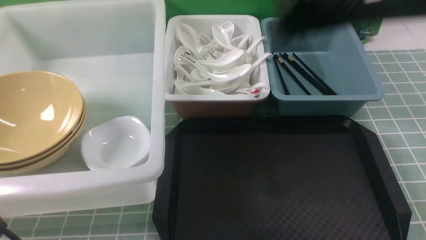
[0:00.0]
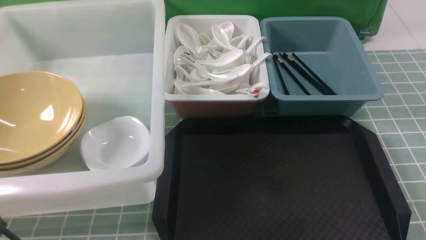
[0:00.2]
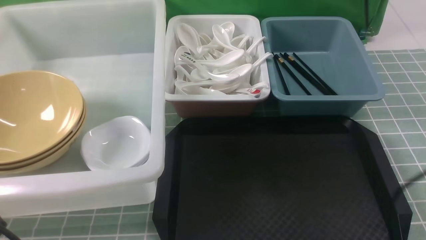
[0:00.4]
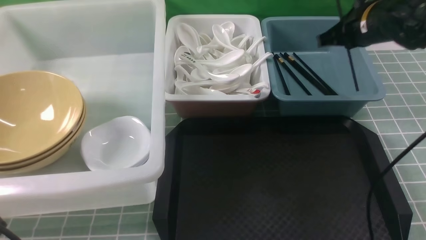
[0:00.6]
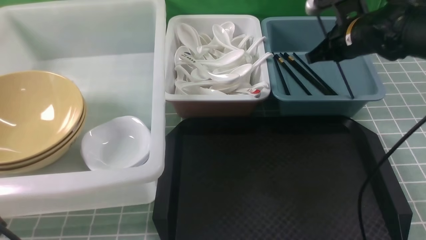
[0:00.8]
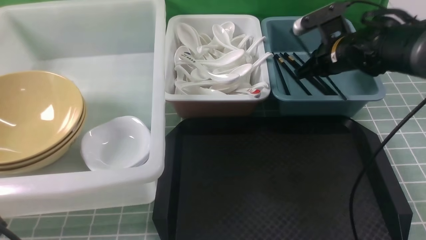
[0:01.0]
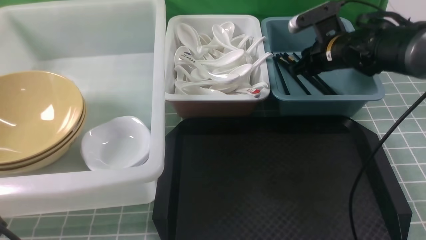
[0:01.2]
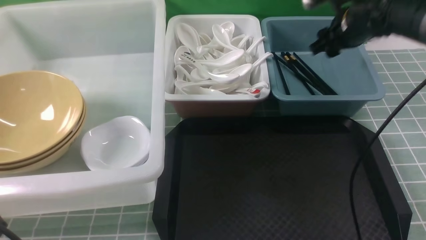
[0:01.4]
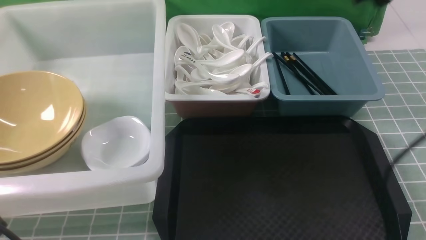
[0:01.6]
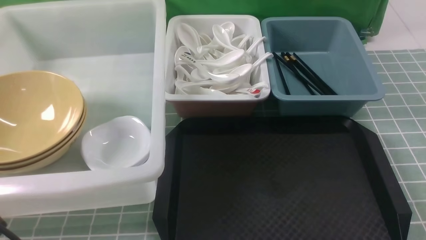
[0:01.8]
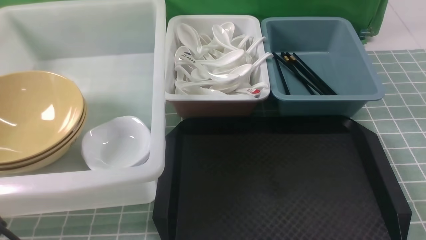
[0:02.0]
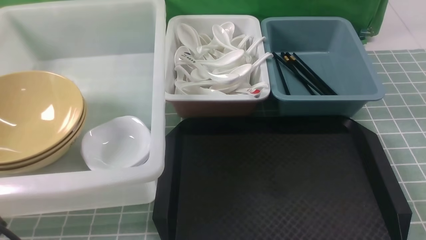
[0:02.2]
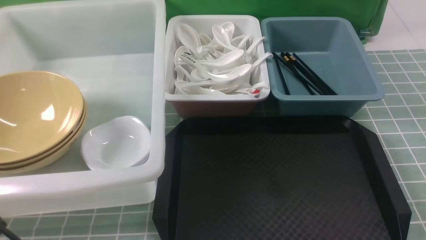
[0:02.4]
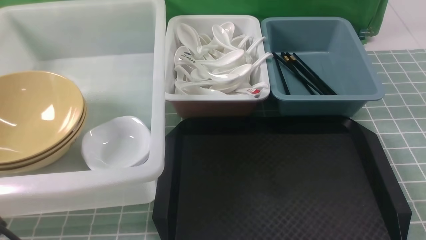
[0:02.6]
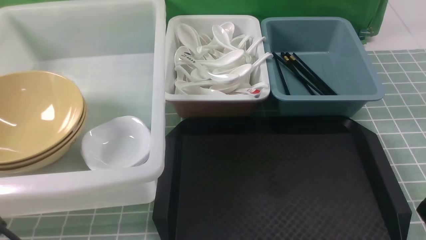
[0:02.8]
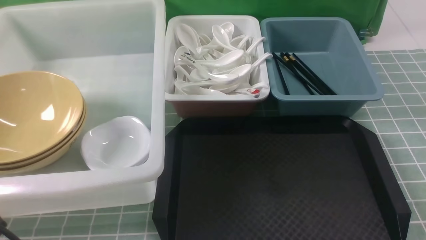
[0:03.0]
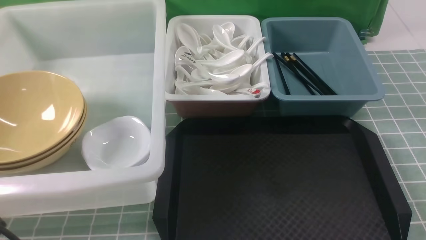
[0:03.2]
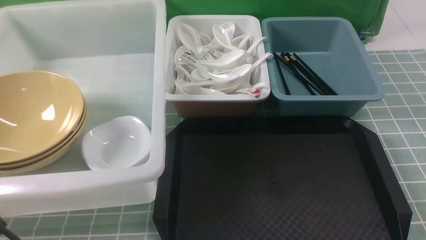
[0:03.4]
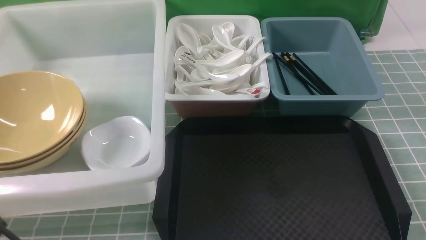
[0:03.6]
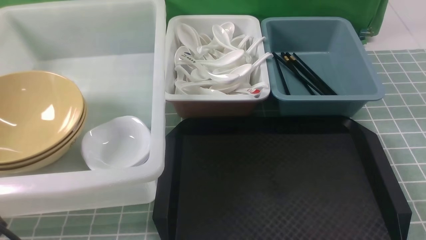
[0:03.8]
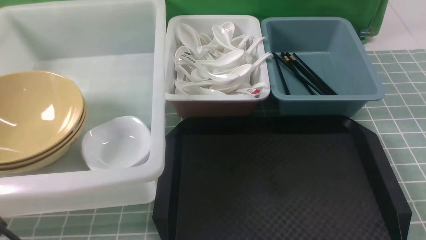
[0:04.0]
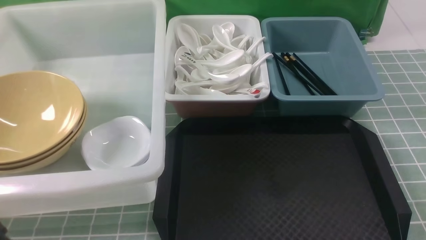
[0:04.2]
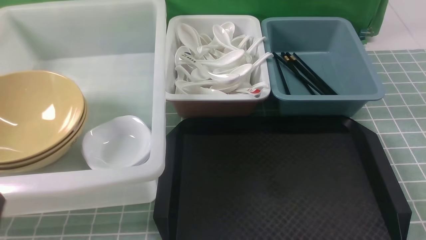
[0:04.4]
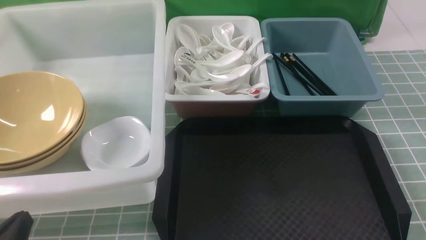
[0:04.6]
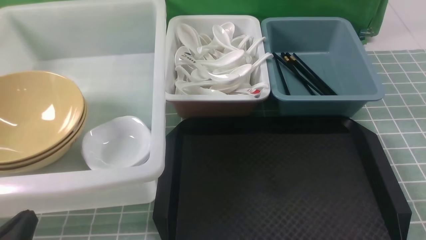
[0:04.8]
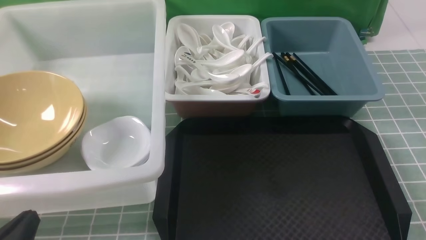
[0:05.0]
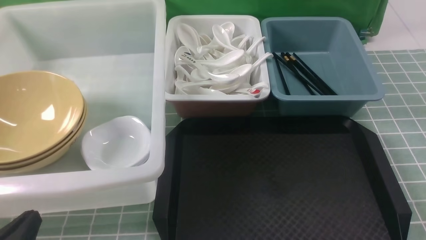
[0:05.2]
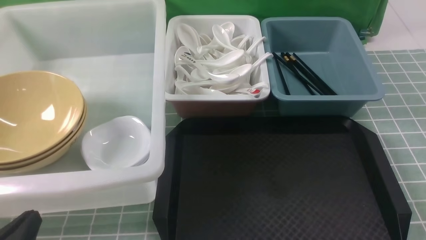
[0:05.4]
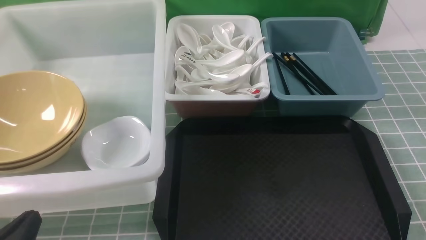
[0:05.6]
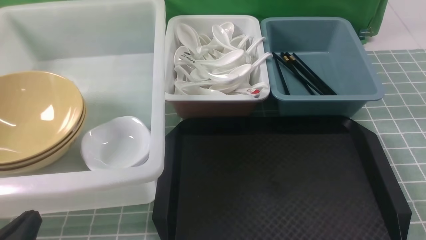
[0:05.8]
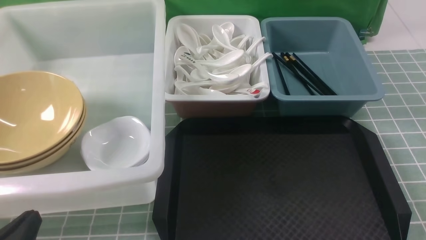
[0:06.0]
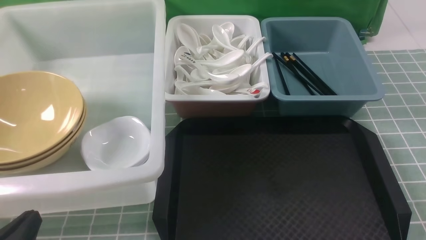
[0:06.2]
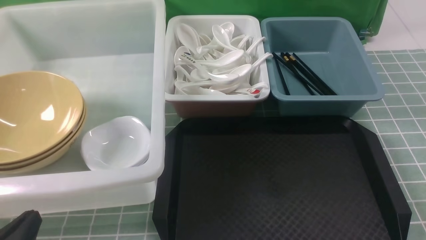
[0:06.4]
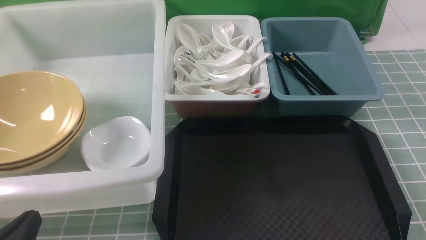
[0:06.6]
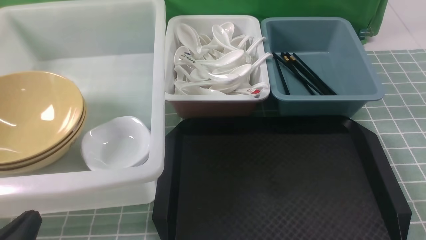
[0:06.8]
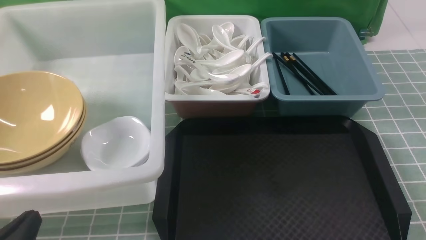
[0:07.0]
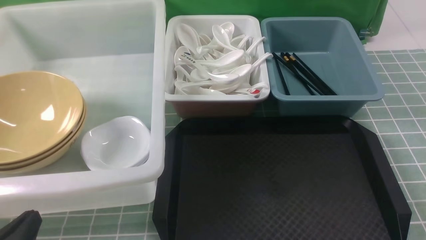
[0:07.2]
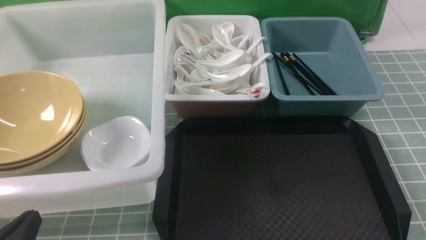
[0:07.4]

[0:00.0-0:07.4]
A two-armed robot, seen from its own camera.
Task of the whole recording: on blue table put chopsticks spoon bowls plates into blue grey white boxes.
Step, 0:00.0 to 0:01.2: use the right arm to put a chopstick into the small storage box on the right.
0:00.0 to 0:01.4: The right gripper travels forward, downward and to the right by some 20 cm, and opens its fingers.
0:01.4 to 0:03.0: The right gripper heads backward, covering approximately 35 cm, and closes its fingers.
0:03.0 to 0:04.4: The left gripper is displaced downward by about 5 cm.
0:04.4 to 0:06.0: There are only small adjustments of the grippers.
0:06.0 to 0:07.4: Both grippers stay put.
